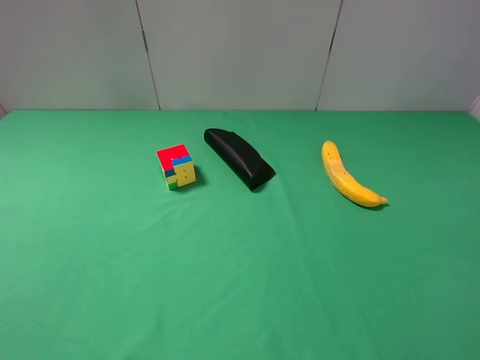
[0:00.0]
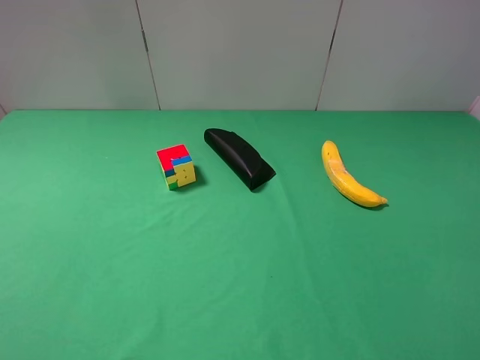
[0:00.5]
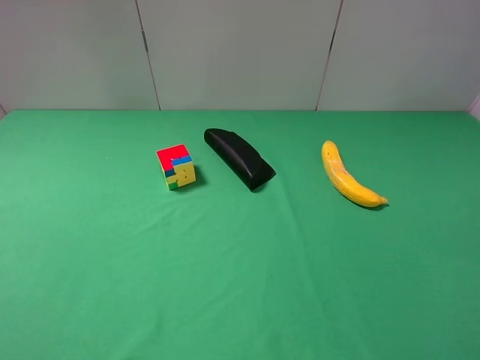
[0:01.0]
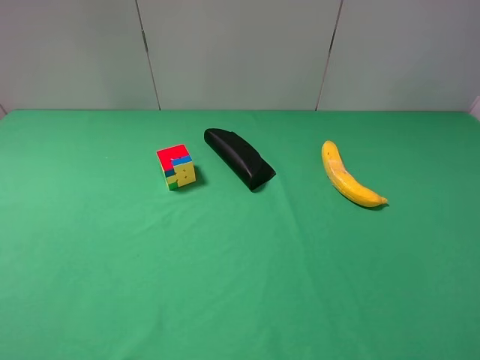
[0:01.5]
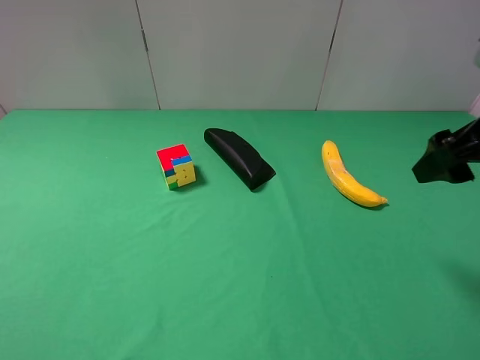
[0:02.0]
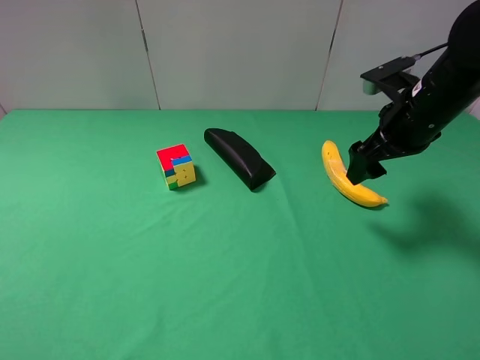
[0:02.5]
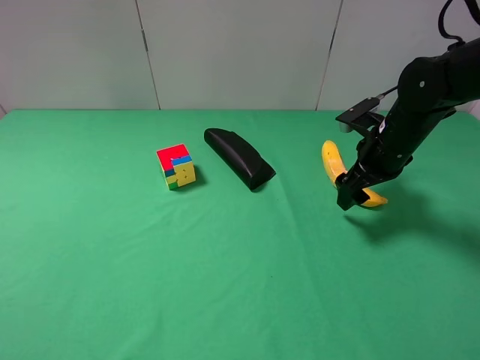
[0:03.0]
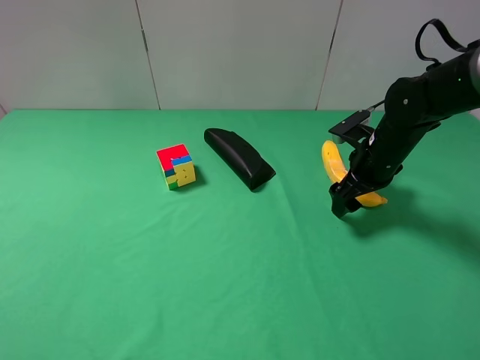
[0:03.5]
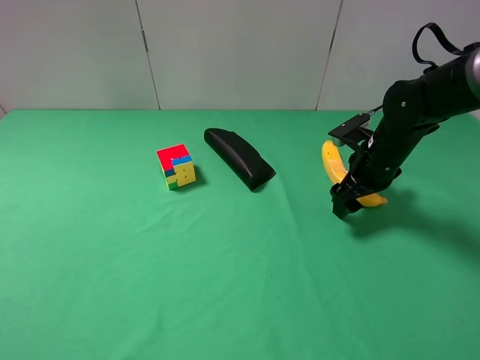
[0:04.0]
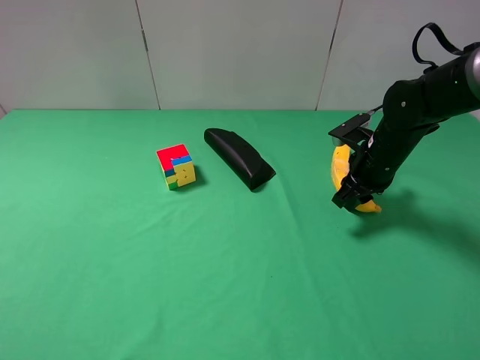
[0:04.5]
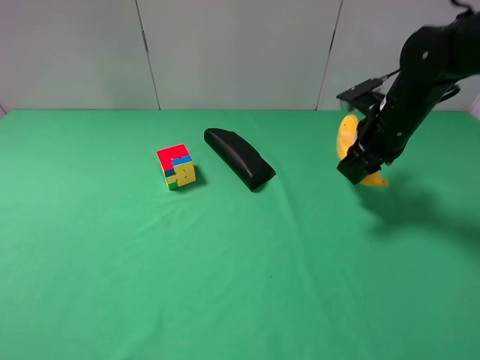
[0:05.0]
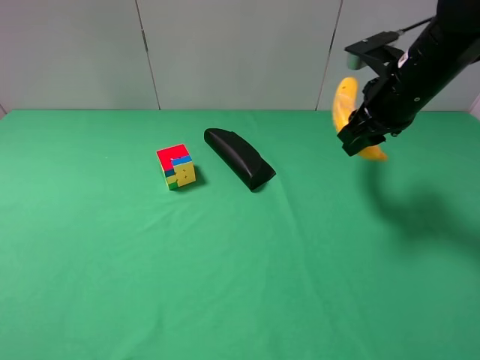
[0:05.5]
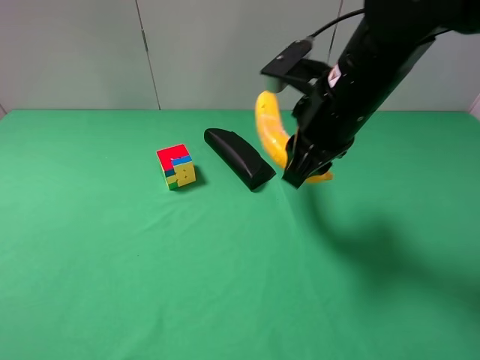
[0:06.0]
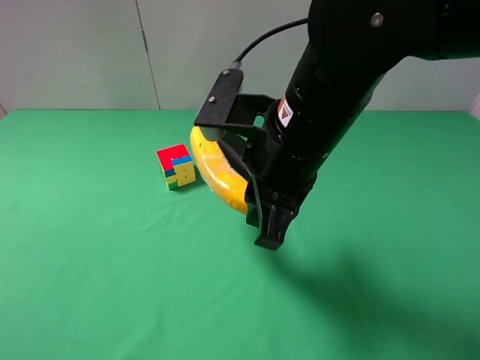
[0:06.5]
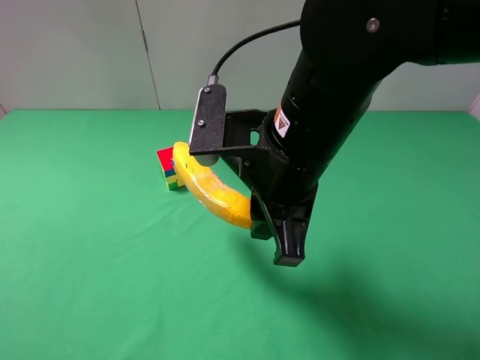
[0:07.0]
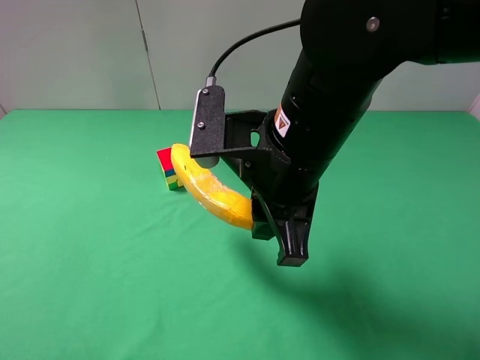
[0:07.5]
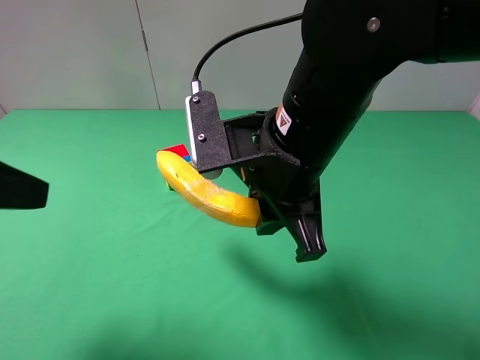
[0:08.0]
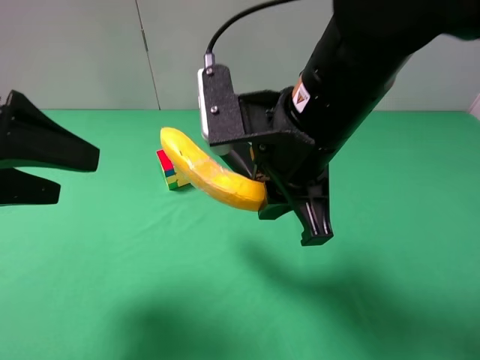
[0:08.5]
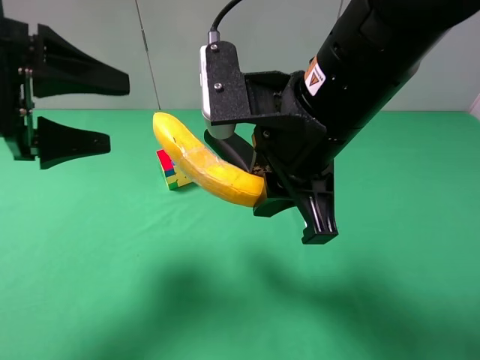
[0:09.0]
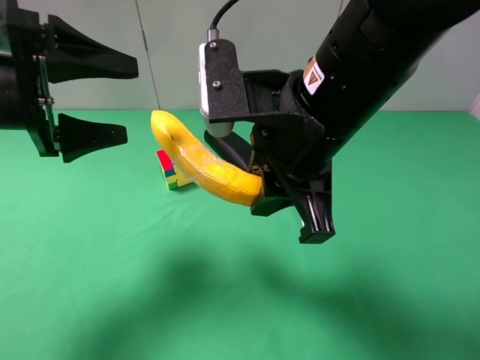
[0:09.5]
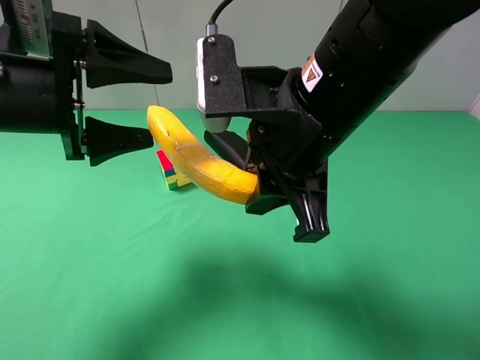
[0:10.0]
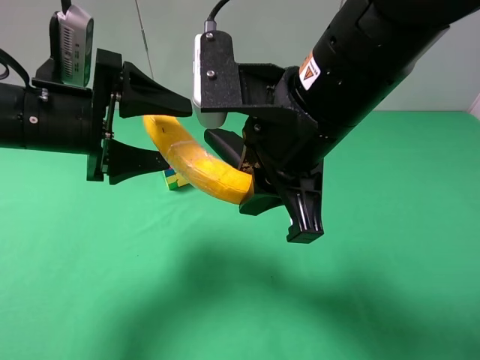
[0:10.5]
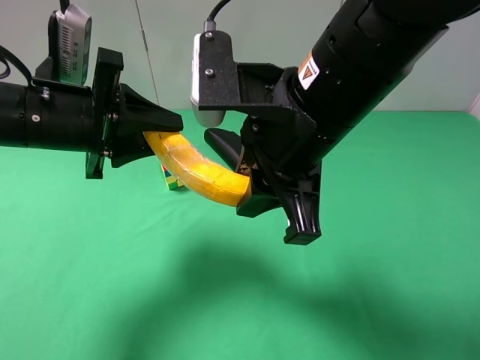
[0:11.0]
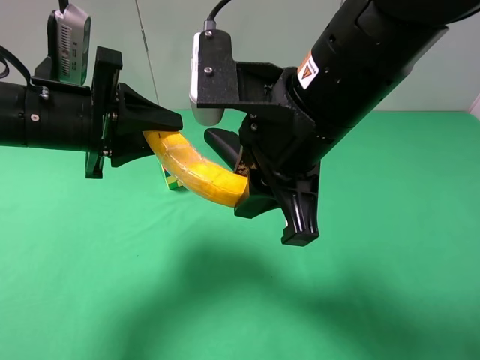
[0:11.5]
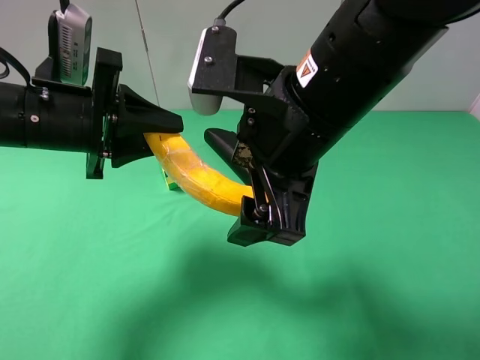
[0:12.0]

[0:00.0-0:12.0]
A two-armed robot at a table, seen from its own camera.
Task of the whole recording: use the right gripper to pick up the item and transfer it from the right gripper to the left gripper.
0:00.0 to 0:02.0: The right gripper is displaced forward by some 20 cm.
0:02.0 to 0:04.0: The right gripper moves downward and forward, about 20 cm.
0:04.0 to 0:06.0: The right gripper goes approximately 20 cm upward, to the left and backward, and closes.
0:06.0 to 0:08.0: The left gripper heads forward, covering some 10 cm. Meanwhile the right gripper goes roughly 5 cm backward.
0:08.0 to 0:10.0: The left gripper heads forward and to the right, covering some 10 cm.
0:10.0 to 0:12.0: The left gripper closes up. The right gripper opens.

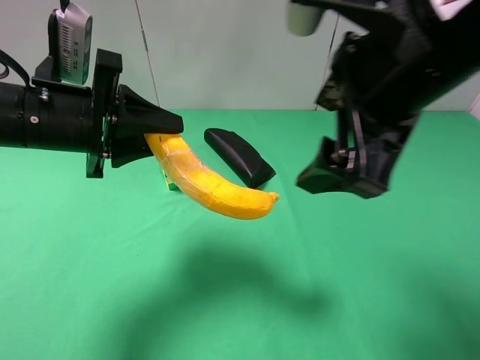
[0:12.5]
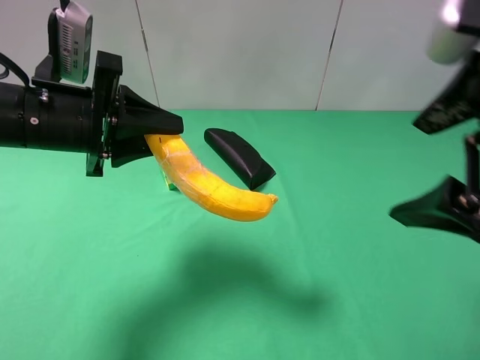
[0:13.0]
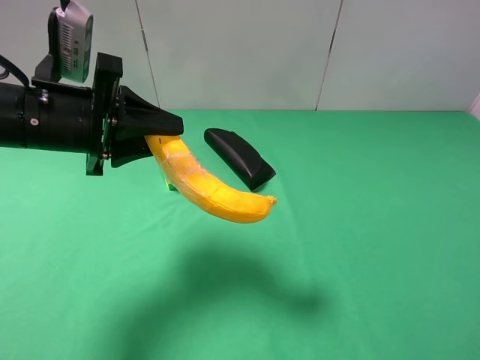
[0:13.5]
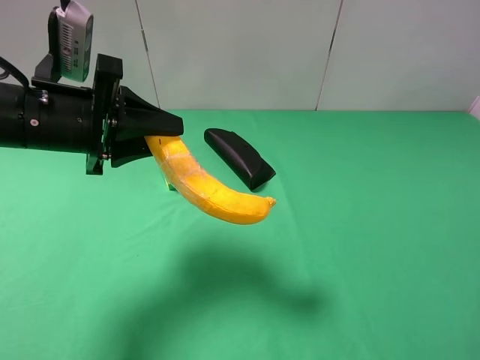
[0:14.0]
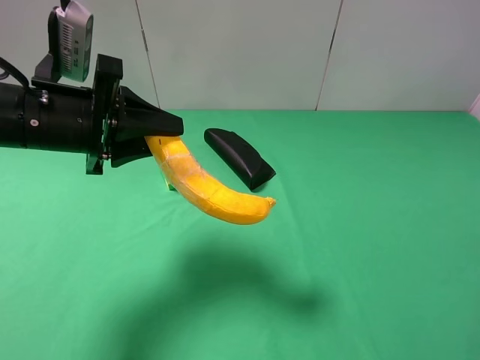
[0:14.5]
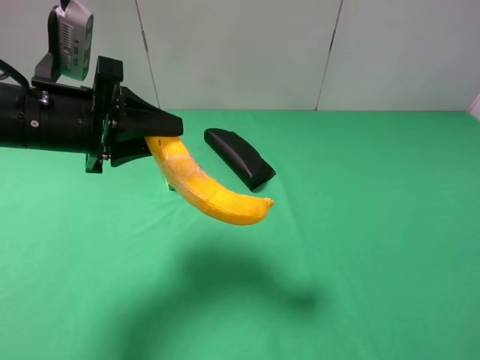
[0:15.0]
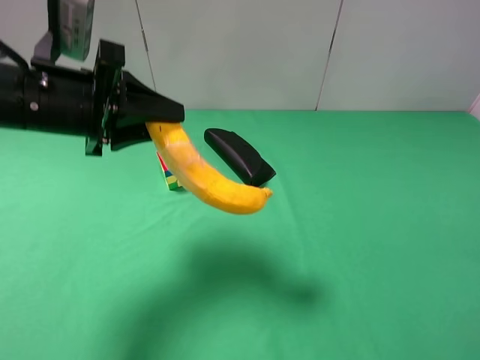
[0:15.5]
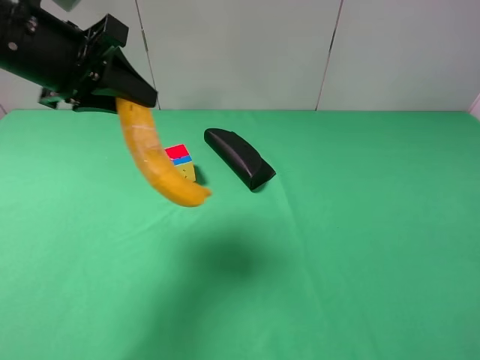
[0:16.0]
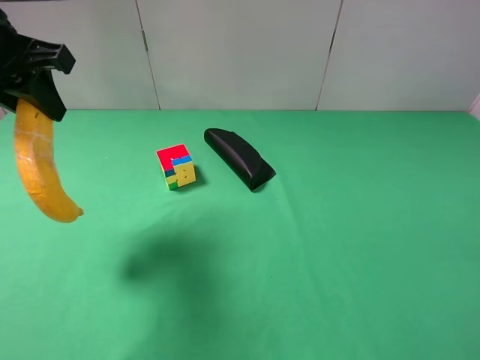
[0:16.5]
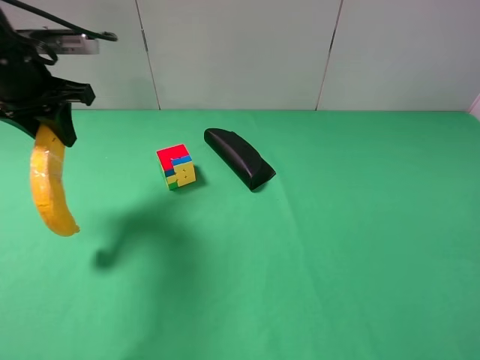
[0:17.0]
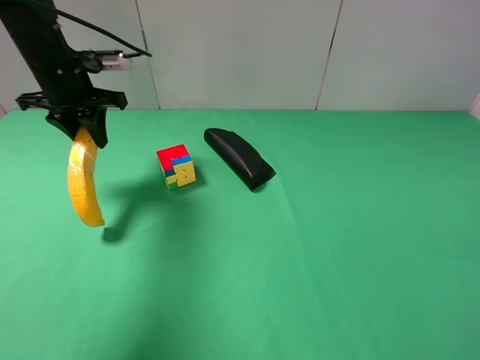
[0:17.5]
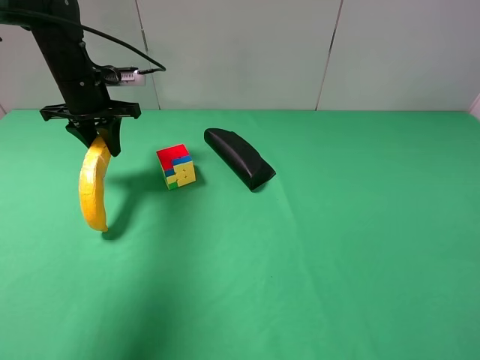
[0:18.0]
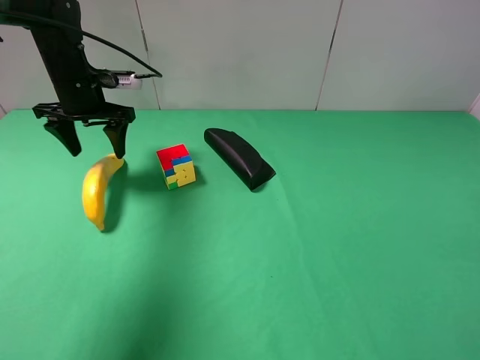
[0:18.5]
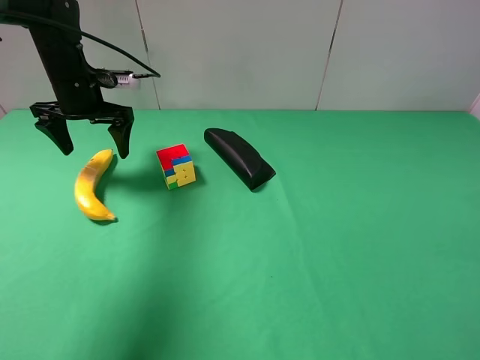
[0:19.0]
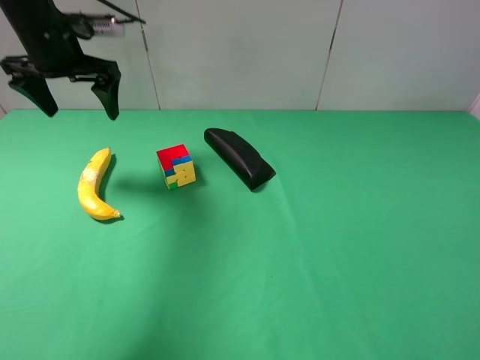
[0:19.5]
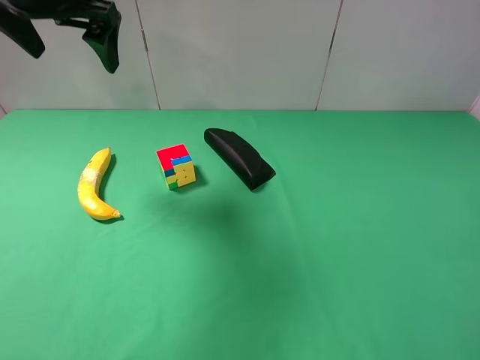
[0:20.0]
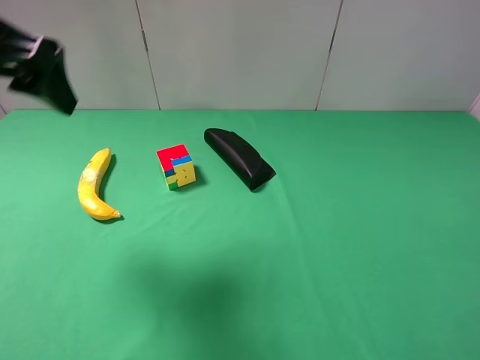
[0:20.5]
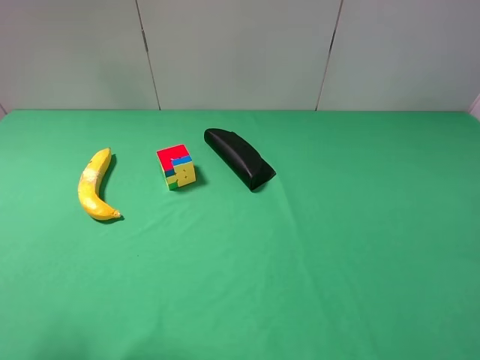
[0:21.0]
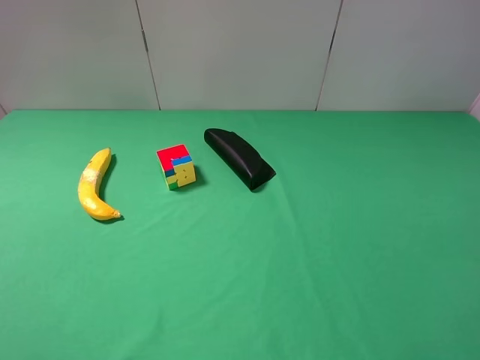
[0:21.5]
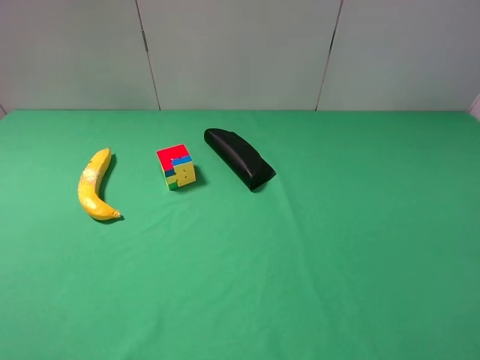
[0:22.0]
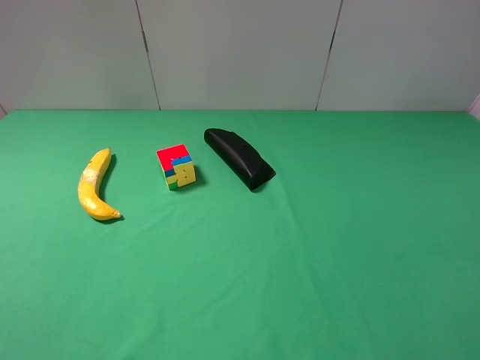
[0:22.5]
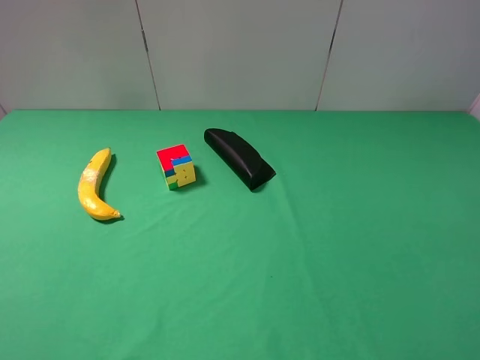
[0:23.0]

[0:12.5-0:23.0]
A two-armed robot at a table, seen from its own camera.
Task of the whole recording: use the right gripper to pick up the item and transfer it from the right gripper to the left gripper.
Step, 0:12.5 to 0:18.5: The left gripper places banana on the left side of the table.
0:12.5 to 0:14.5: The right gripper moves to the right and backward, about 25 cm.
0:14.5 to 0:16.5: The left gripper goes about 10 cm upward, to the left and forward.
0:16.5 to 0:19.0: The left gripper moves forward and downward, some 20 cm, and opens up.
0:19.0 to 0:21.0: The left gripper heads backward, covering about 35 cm.

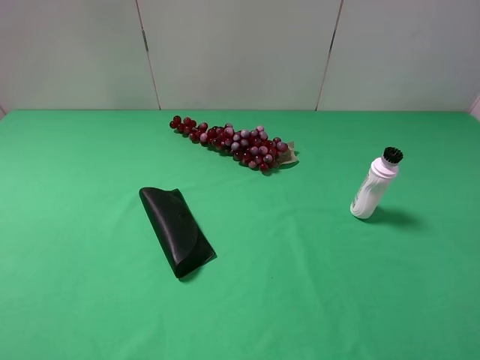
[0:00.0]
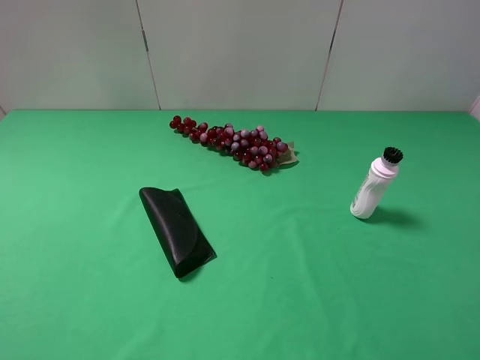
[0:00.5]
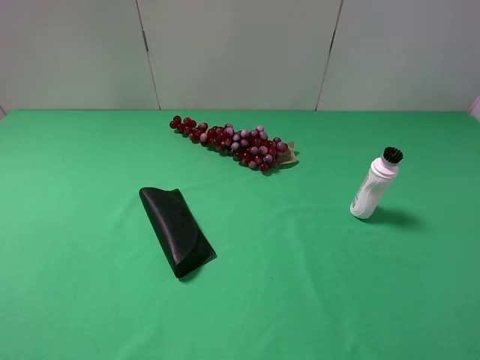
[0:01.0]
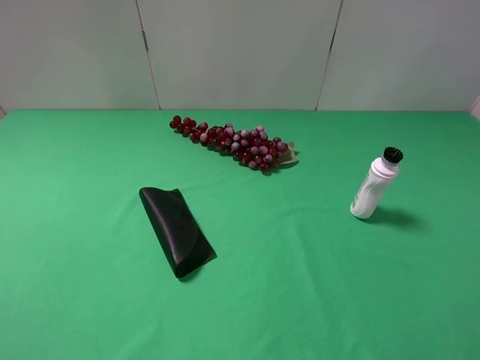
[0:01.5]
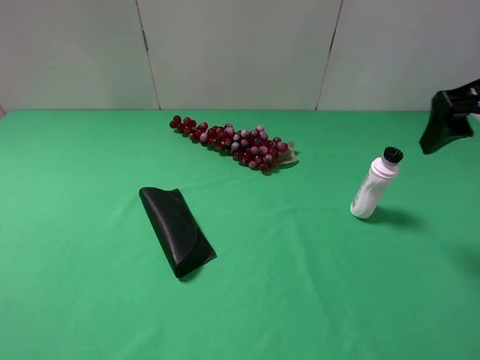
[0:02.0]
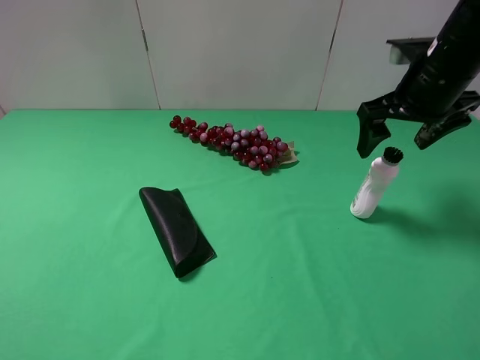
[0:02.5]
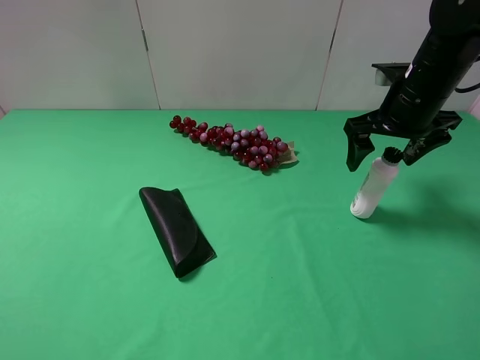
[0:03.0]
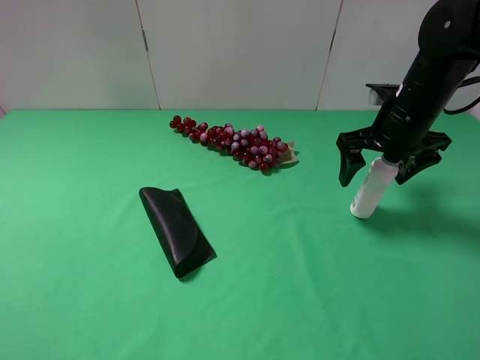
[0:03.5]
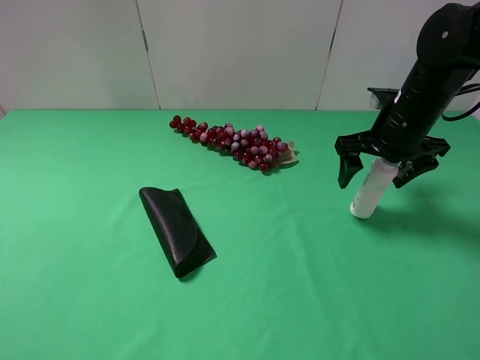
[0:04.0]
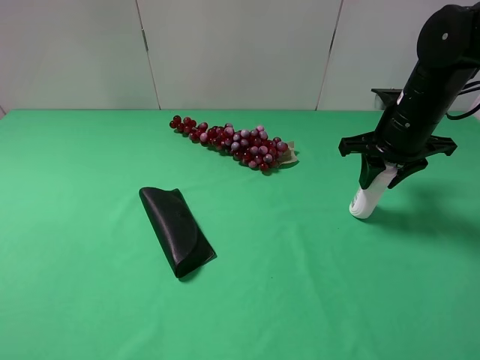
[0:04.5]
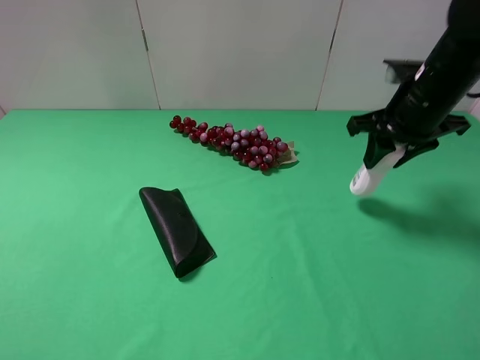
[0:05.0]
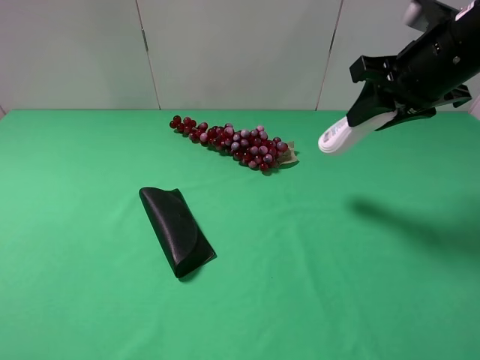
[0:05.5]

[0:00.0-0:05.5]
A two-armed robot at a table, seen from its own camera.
Task of the whole recording: use the right gripper to pick up the item and transfer it from the right gripper to the left gripper.
0:00.0 to 0:02.0: The right gripper is displaced forward by approximately 25 cm.
0:02.0 to 0:03.5: The right gripper travels downward and forward by about 15 cm.
0:03.5 to 0:05.5: The right gripper shifts approximately 10 cm upward, and closes up.
